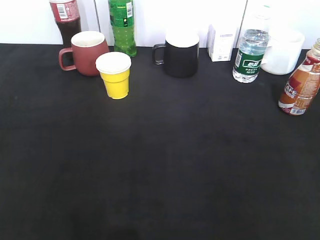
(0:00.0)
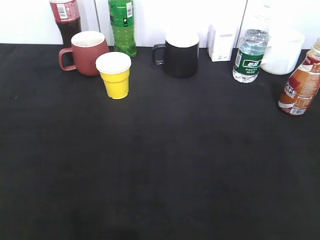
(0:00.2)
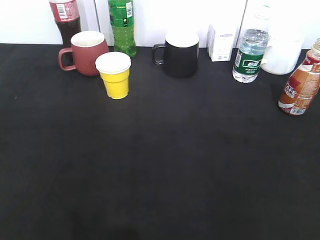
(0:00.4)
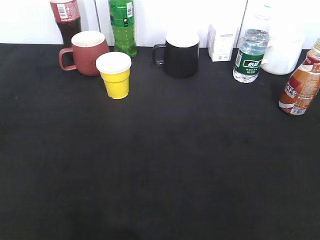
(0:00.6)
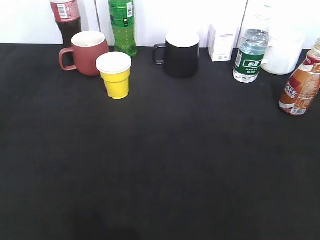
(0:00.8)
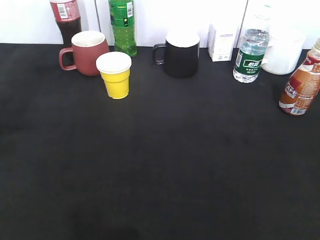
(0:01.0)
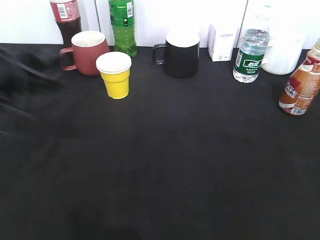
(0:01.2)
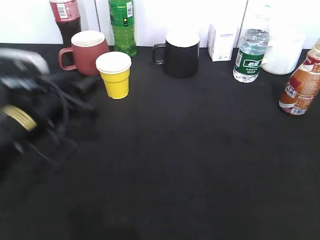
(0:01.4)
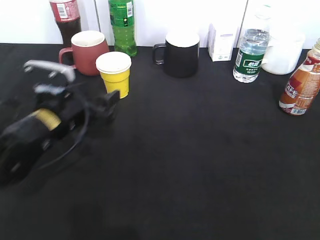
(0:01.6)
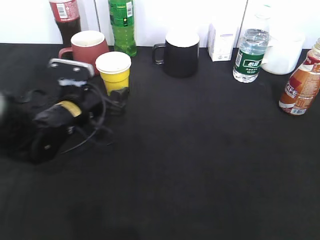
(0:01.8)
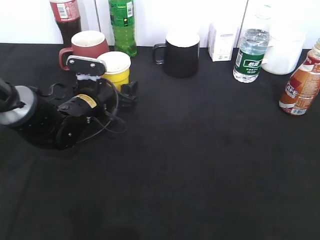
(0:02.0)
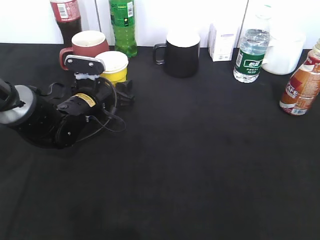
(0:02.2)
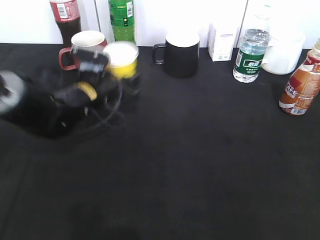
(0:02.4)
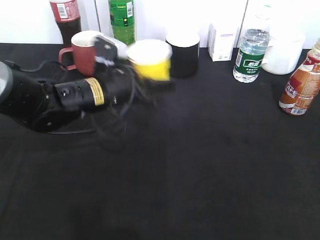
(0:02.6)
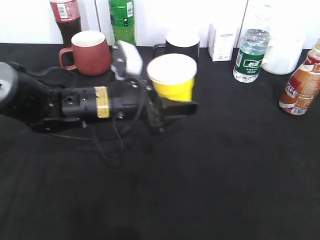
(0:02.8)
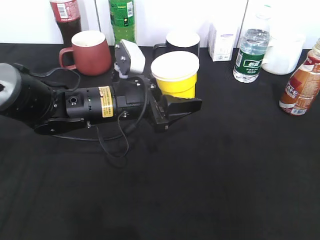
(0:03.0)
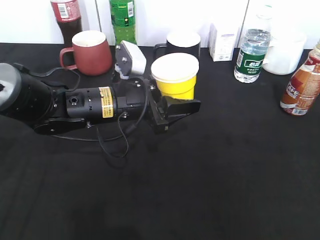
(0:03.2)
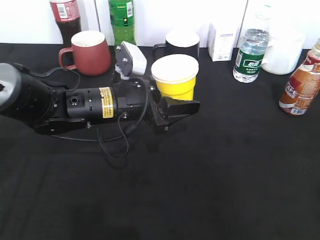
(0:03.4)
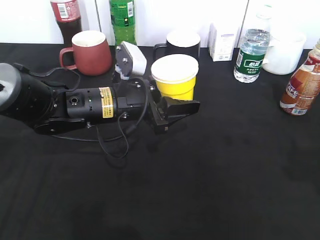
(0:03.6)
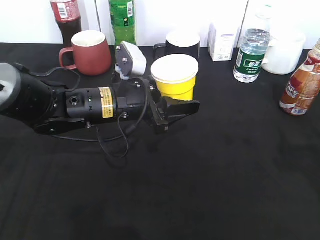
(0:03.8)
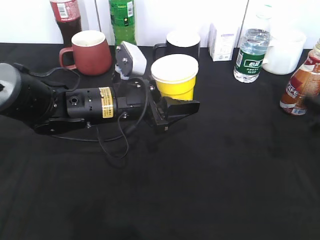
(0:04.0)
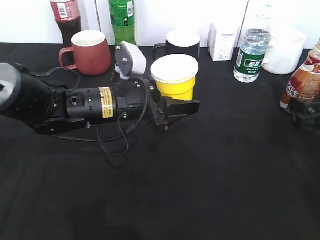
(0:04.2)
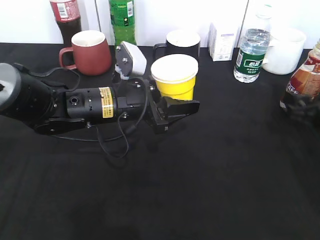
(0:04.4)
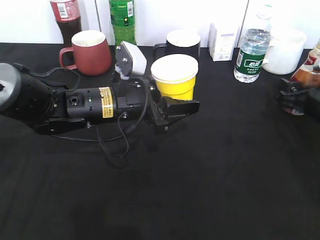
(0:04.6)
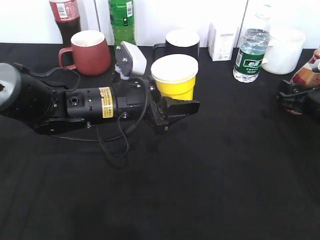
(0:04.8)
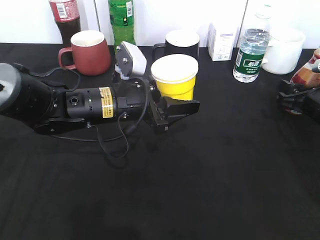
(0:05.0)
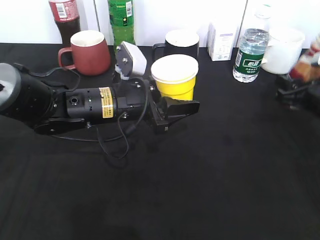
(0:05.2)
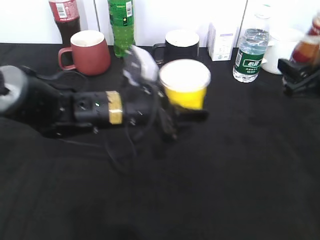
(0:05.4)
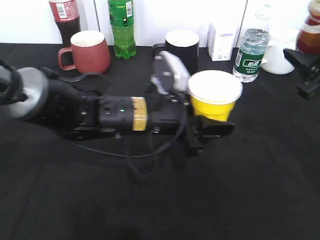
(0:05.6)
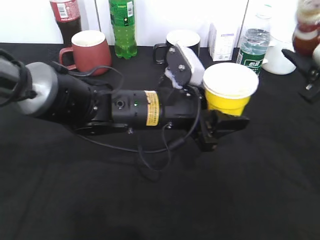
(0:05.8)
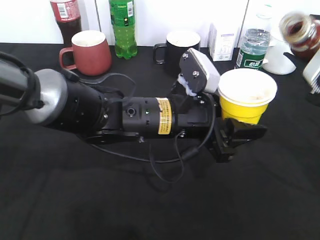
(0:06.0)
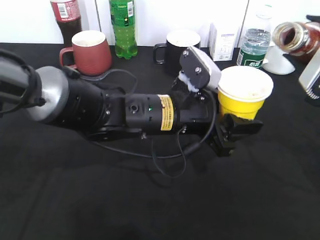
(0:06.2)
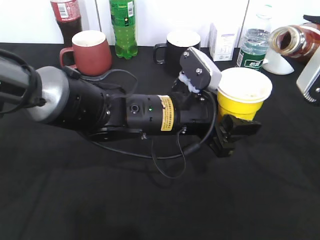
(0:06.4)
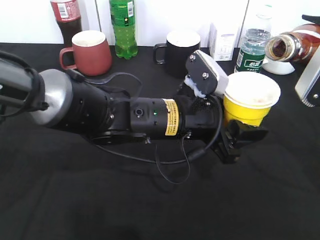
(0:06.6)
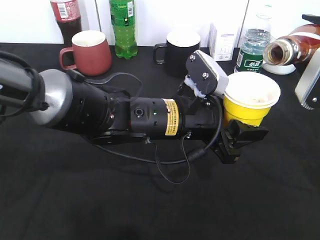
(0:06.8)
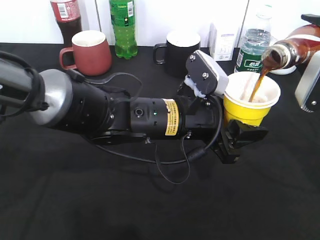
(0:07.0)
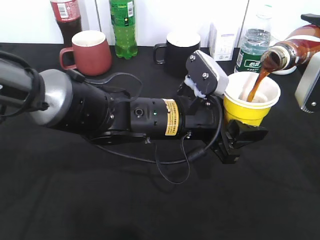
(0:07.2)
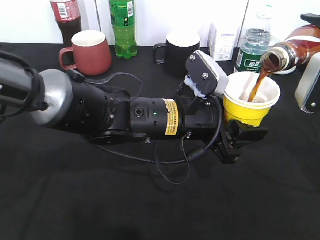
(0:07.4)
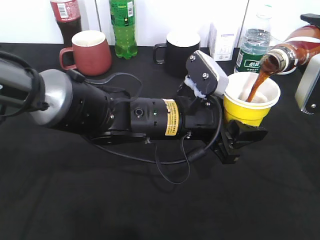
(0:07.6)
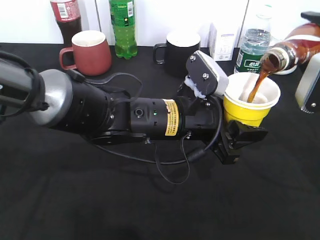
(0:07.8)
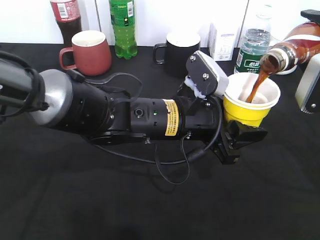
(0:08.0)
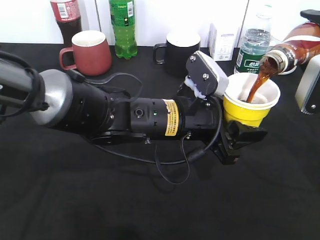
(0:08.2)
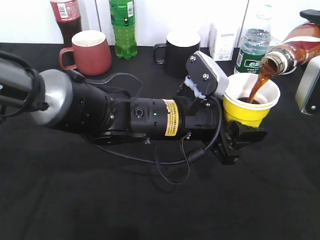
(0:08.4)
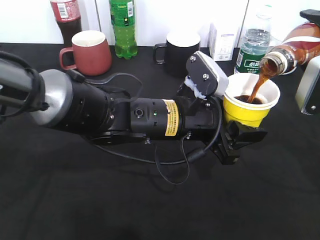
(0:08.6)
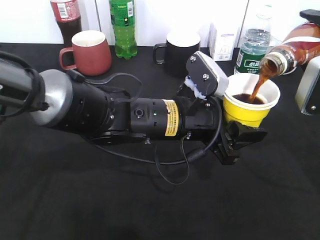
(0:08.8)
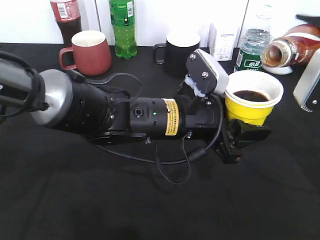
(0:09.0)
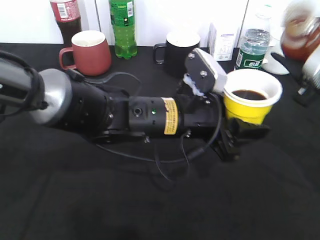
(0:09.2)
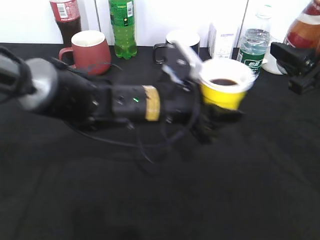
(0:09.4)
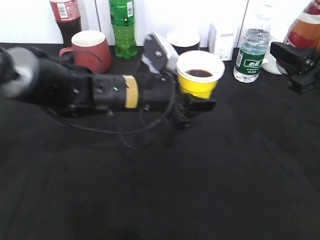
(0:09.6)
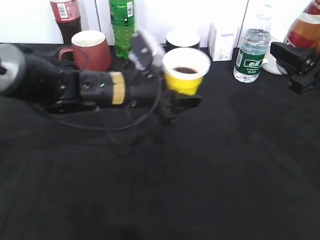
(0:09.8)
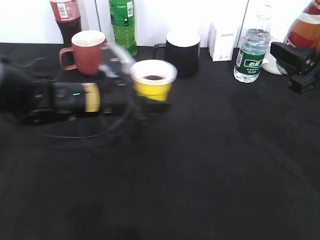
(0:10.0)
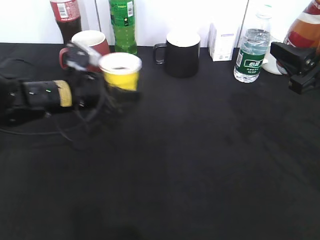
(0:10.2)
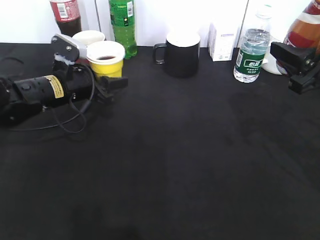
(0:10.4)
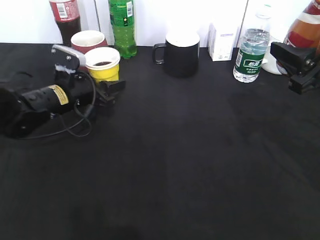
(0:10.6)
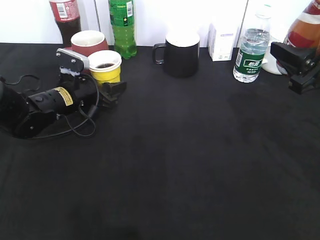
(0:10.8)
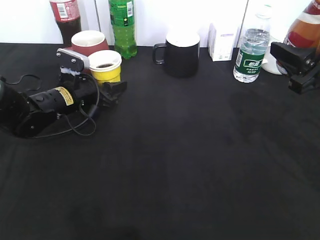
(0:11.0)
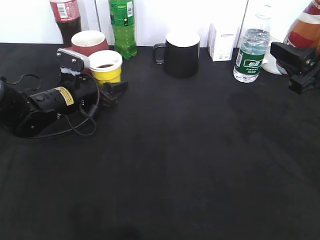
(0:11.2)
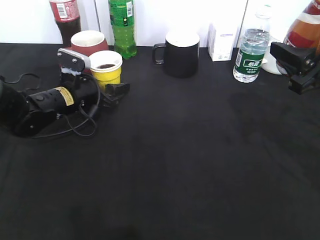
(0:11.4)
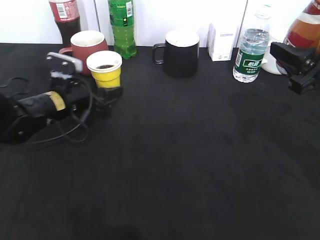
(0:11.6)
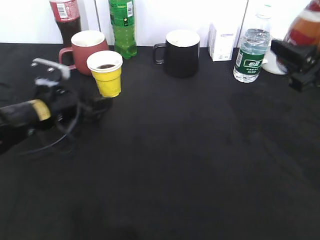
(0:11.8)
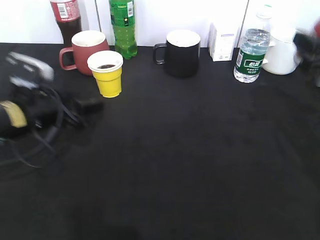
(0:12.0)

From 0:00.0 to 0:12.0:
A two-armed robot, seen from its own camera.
Step, from 0:01.2 to 0:02.2: Grasp the yellow paper cup with left gripper.
Step, from 0:02.4 to 0:03.6: Lift the yellow paper cup with left gripper.
Step, from 0:03.8 to 0:04.8: Grasp the bottle with coffee with right gripper.
Step, from 0:05.0 to 0:09.0: Pour the coffee from bottle to cup with right gripper.
Step, from 0:09.2 to 0:11.2: Place the yellow paper cup on the table with left gripper.
From 0:00.0 to 0:01.6: The left gripper goes approximately 35 cm forward, to the right and downward, and opens.
From 0:01.6 to 0:03.0: The left gripper is displaced to the right by about 10 cm, and closes.
From 0:03.0 to 0:04.4: The right gripper is displaced forward and downward by roughly 35 cm, and opens.
From 0:04.4 to 0:06.0: The right gripper goes some 10 cm upward, and closes up. Meanwhile the left gripper is displaced to the right and backward by roughly 10 cm.
From 0:07.6 to 0:09.0: There are only small adjustments of the grippers.
From 0:09.0 to 0:10.4: The left gripper goes roughly 25 cm to the left and forward.
From 0:10.4 to 0:12.0: The left gripper travels backward by roughly 10 cm, and opens its fingers.

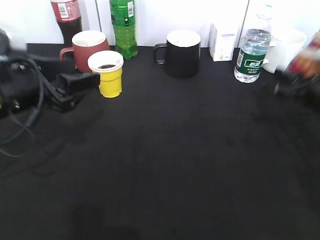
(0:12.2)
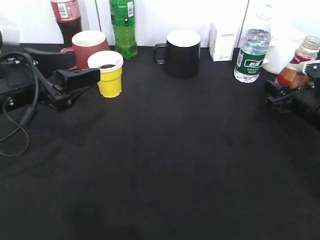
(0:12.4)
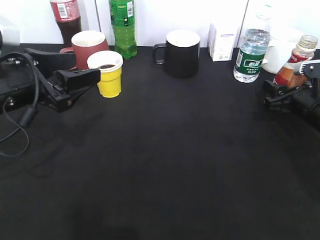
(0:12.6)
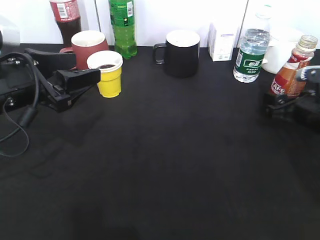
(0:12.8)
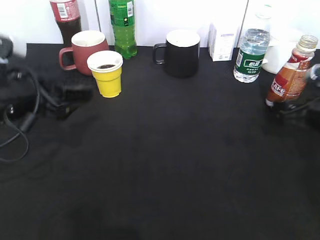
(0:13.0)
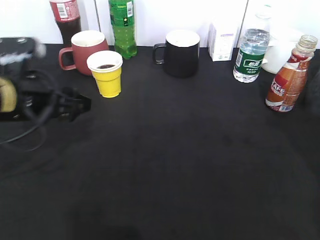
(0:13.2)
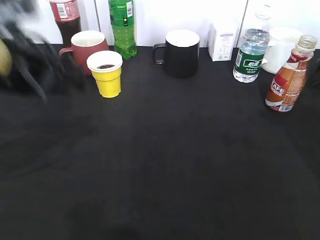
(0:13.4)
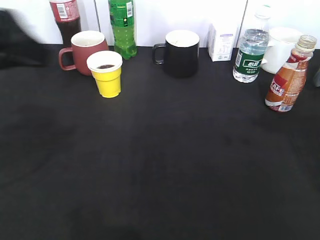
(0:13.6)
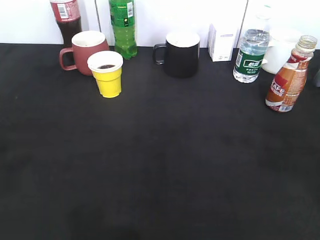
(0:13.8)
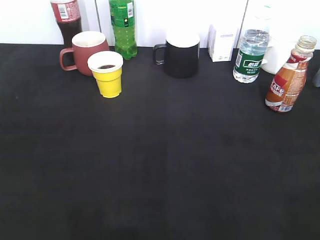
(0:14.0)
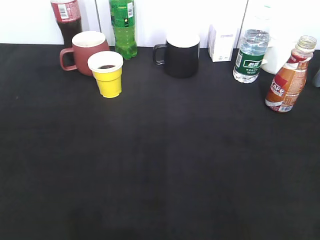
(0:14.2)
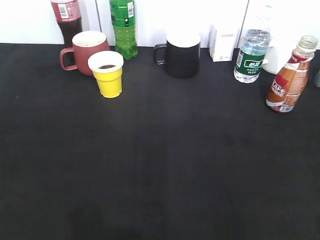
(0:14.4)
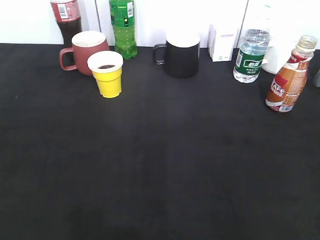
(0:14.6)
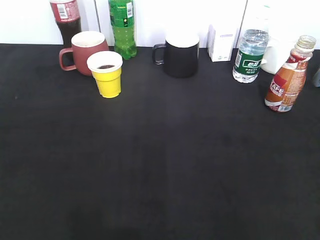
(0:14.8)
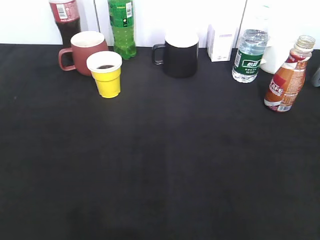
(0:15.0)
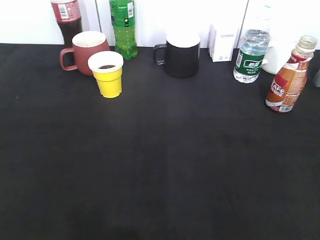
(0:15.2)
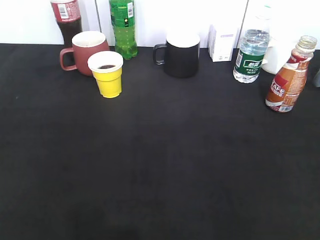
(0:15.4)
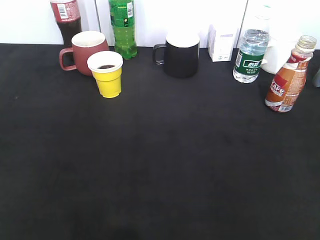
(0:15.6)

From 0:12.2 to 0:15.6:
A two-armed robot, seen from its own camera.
From 0:12.2 to 0:13.8: The left gripper moves backward and upward, about 25 cm, and closes, while the right gripper heads upward and backward, covering some 25 cm, and opens its fingers.

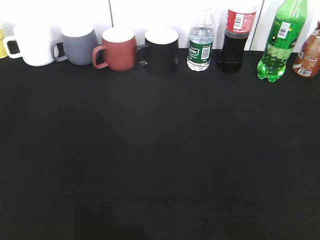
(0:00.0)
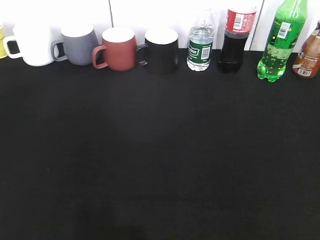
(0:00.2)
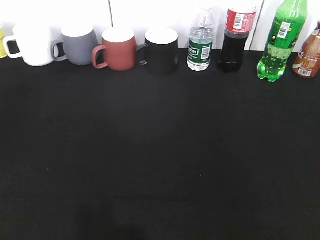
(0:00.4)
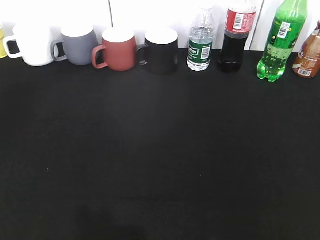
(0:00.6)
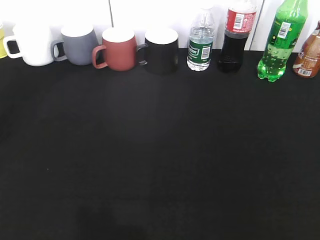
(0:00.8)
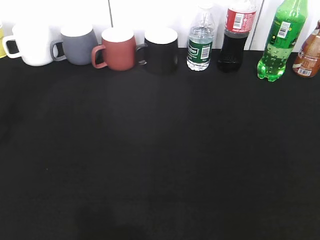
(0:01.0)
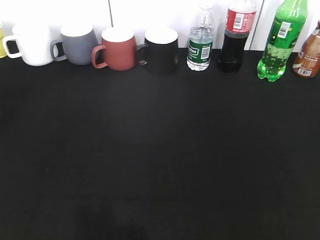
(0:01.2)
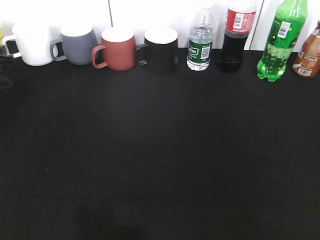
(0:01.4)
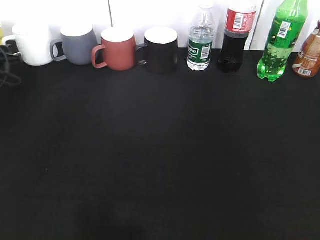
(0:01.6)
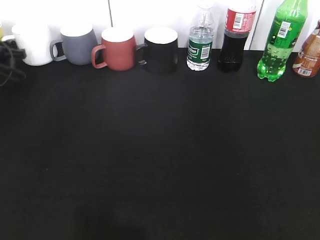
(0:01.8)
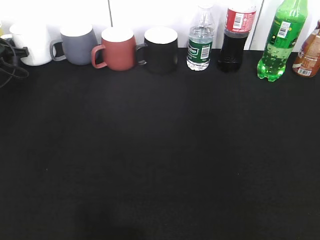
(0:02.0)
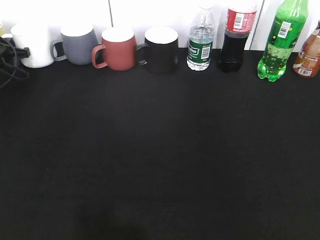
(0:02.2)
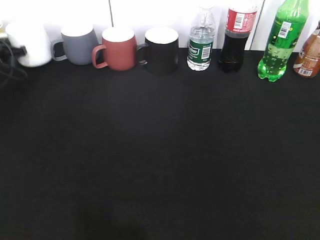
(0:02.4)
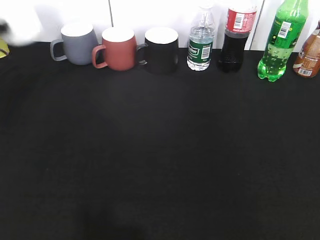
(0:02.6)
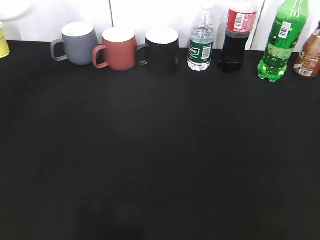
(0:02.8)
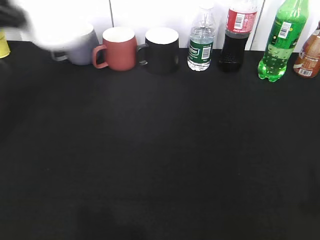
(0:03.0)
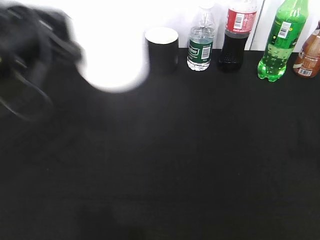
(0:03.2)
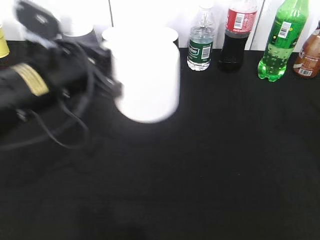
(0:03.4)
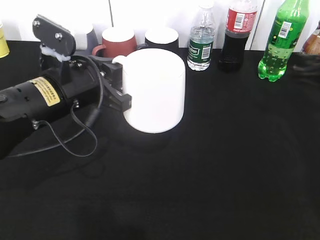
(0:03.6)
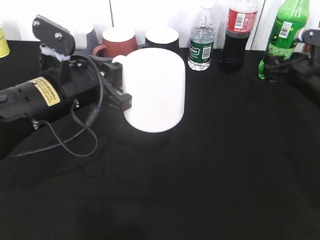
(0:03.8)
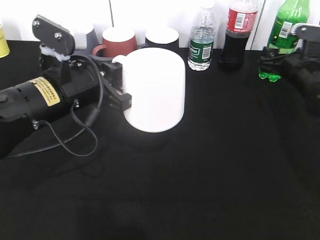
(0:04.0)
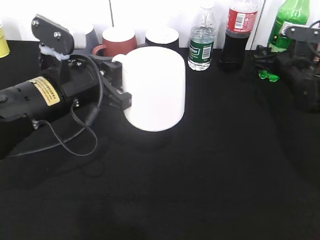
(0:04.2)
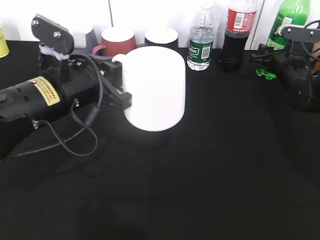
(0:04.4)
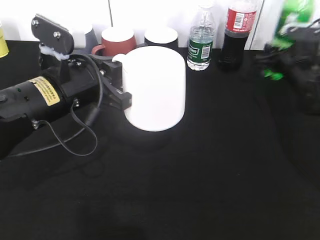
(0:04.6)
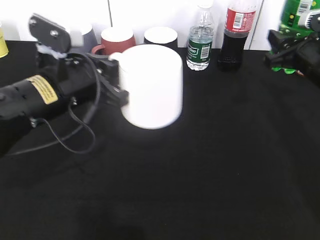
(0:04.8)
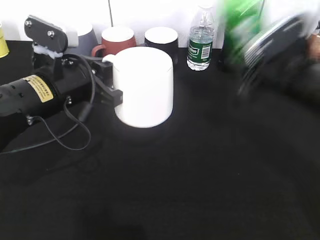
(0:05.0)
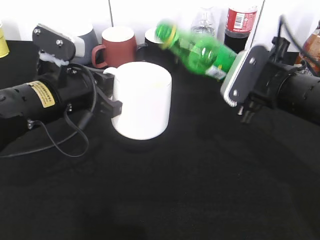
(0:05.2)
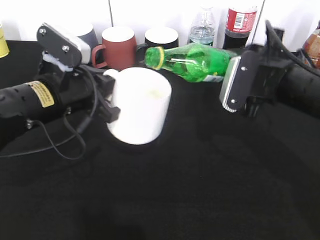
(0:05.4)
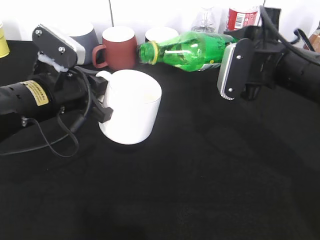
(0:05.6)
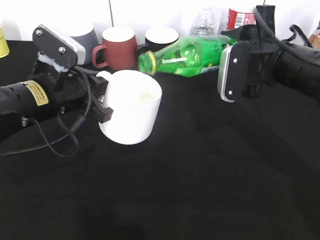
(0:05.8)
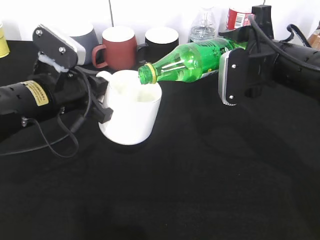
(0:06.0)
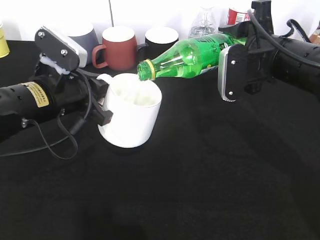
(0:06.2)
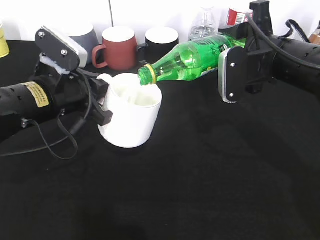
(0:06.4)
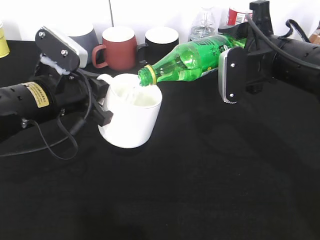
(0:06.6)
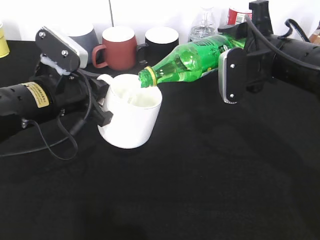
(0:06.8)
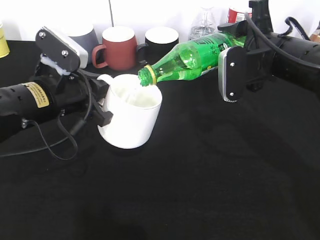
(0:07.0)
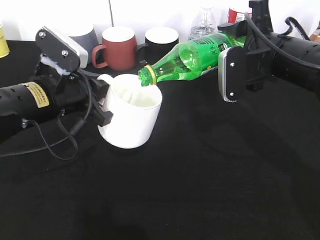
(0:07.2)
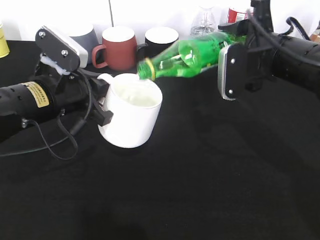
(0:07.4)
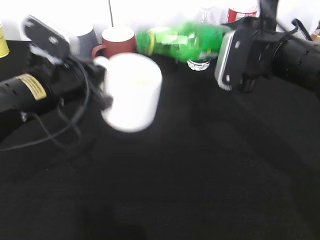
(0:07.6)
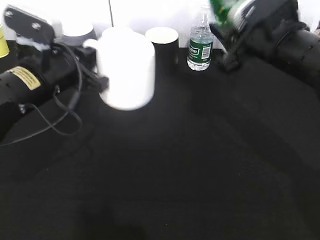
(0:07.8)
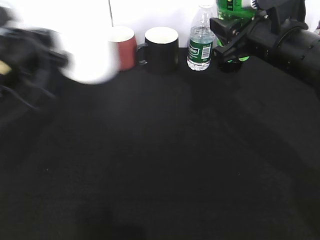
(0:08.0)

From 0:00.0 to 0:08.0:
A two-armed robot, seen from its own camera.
Step, from 0:02.0 to 0:03.4: Lift the white cup with left gripper.
Step, from 0:03.6 to 0:04.4: Grasp the bottle with sprite with right gripper.
Step, from 0:04.6 to 0:07.6: Pour the sprite from bottle to cup with right gripper.
From 0:00.0 to 0:01.6: The left gripper heads forward, covering approximately 50 cm, and closes its fingers.
From 0:01.6 to 0:03.2: The right gripper heads forward, covering approximately 15 cm. The left gripper goes approximately 30 cm backward, to the right and upward, and closes.
From 0:03.2 to 0:04.8: The left gripper shifts some 5 cm downward, while the right gripper travels forward and downward by approximately 20 cm, and closes up.
From 0:04.8 to 0:06.4: The right gripper travels to the left by about 10 cm.
From 0:06.4 to 0:08.0: The left gripper goes approximately 5 cm to the left.
